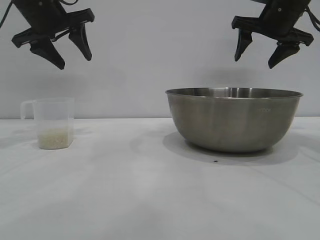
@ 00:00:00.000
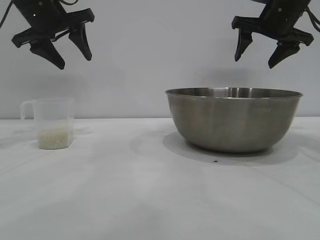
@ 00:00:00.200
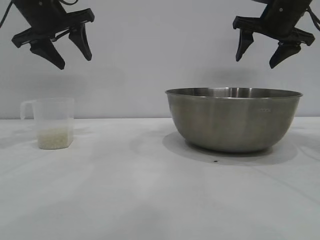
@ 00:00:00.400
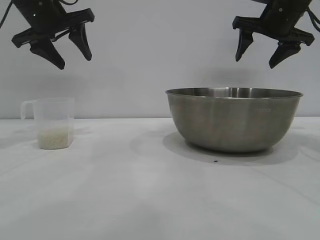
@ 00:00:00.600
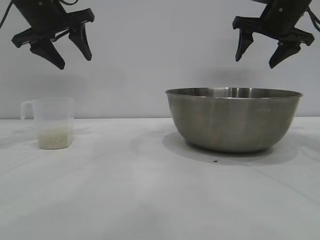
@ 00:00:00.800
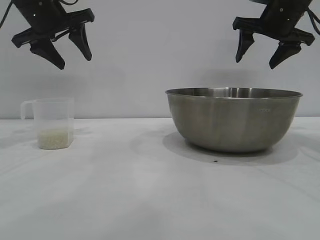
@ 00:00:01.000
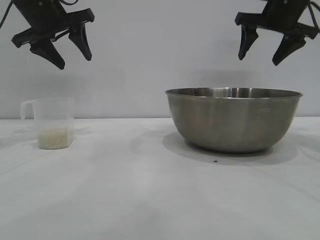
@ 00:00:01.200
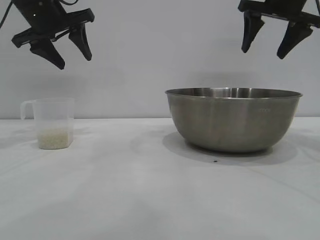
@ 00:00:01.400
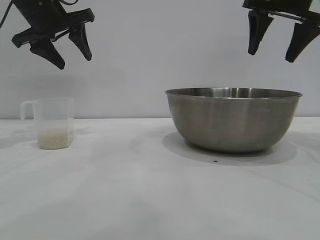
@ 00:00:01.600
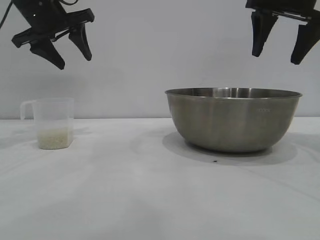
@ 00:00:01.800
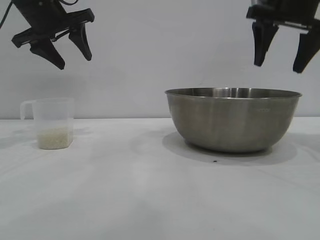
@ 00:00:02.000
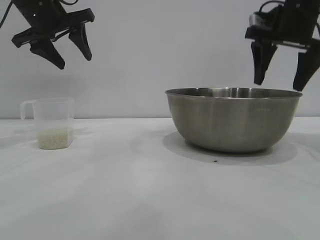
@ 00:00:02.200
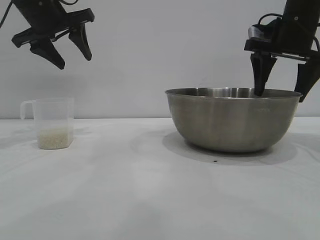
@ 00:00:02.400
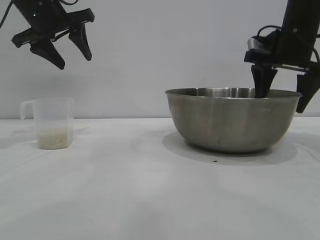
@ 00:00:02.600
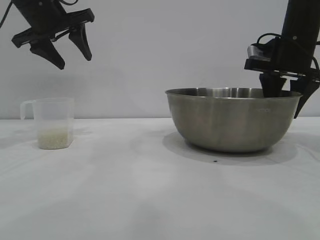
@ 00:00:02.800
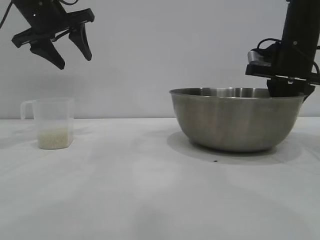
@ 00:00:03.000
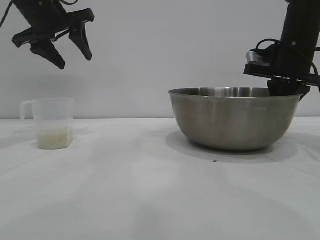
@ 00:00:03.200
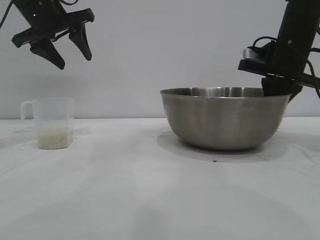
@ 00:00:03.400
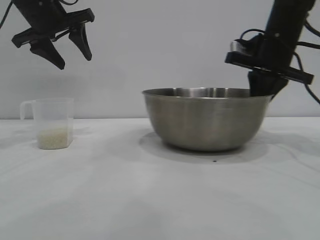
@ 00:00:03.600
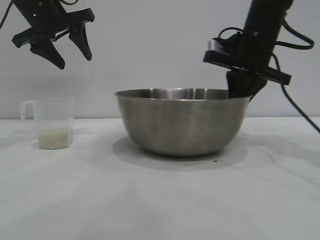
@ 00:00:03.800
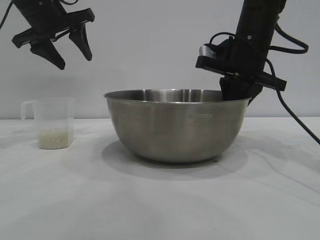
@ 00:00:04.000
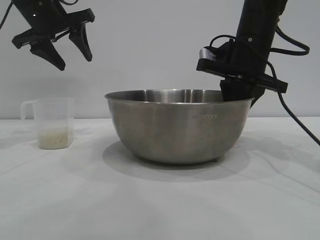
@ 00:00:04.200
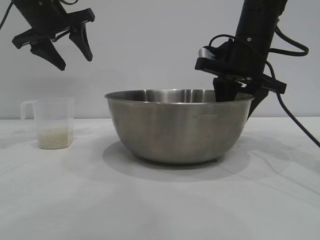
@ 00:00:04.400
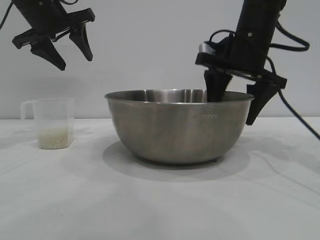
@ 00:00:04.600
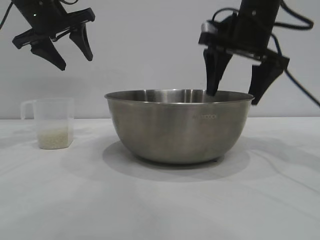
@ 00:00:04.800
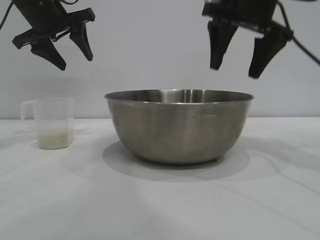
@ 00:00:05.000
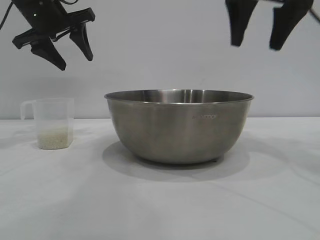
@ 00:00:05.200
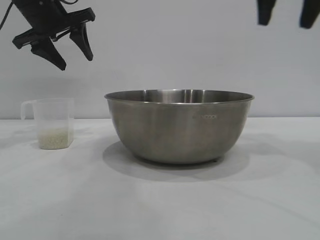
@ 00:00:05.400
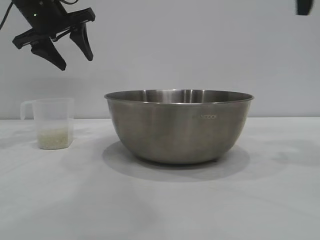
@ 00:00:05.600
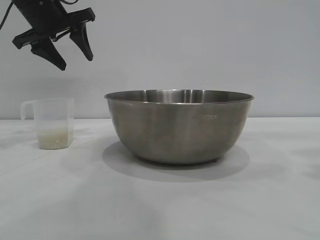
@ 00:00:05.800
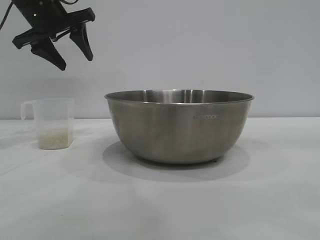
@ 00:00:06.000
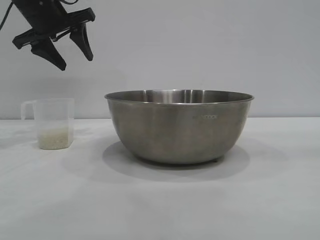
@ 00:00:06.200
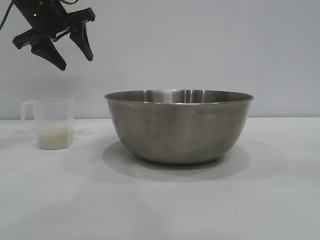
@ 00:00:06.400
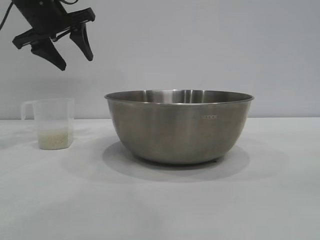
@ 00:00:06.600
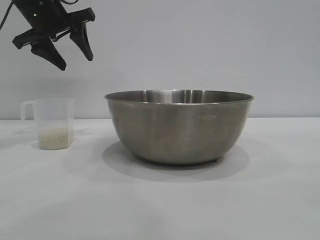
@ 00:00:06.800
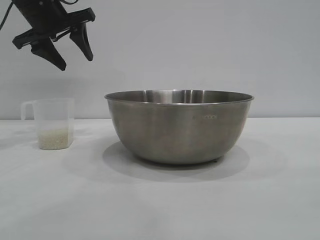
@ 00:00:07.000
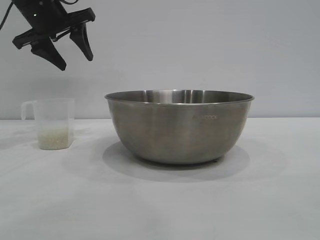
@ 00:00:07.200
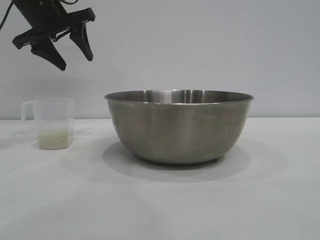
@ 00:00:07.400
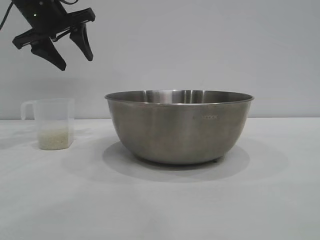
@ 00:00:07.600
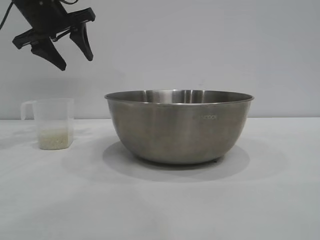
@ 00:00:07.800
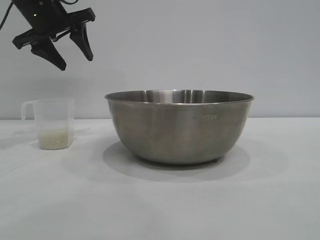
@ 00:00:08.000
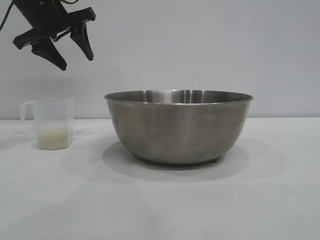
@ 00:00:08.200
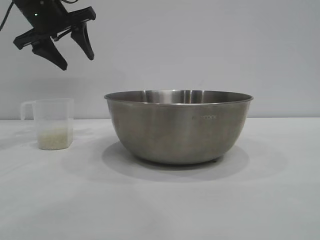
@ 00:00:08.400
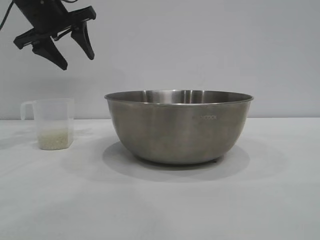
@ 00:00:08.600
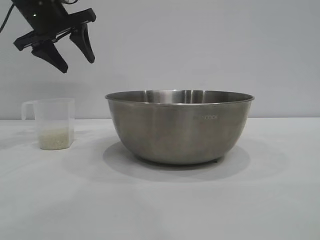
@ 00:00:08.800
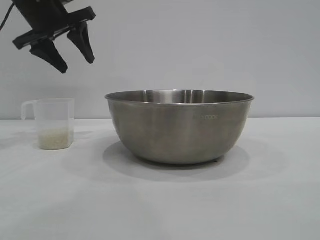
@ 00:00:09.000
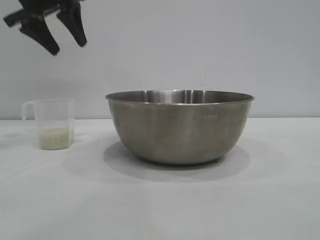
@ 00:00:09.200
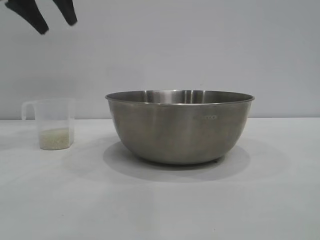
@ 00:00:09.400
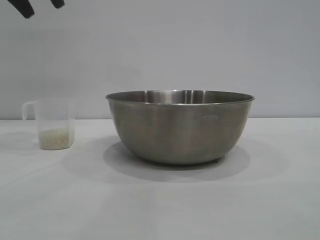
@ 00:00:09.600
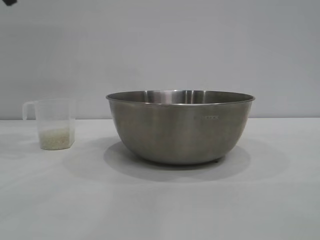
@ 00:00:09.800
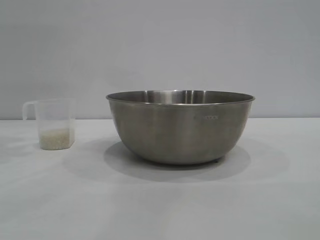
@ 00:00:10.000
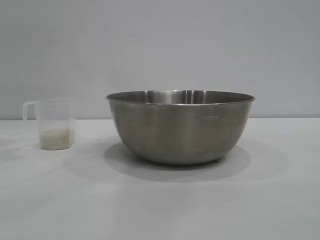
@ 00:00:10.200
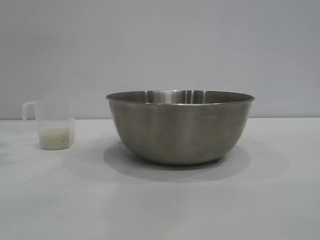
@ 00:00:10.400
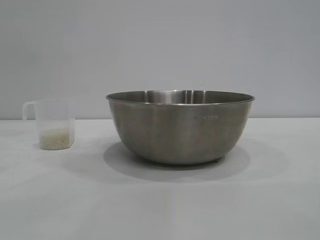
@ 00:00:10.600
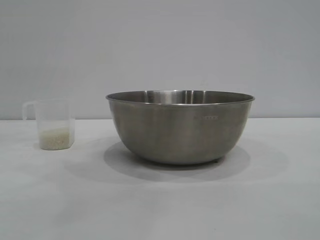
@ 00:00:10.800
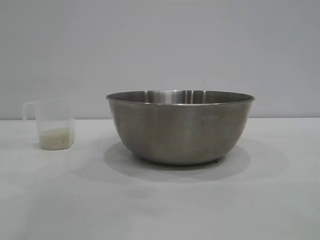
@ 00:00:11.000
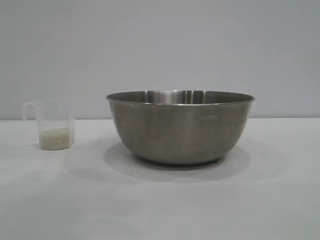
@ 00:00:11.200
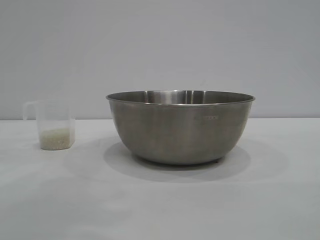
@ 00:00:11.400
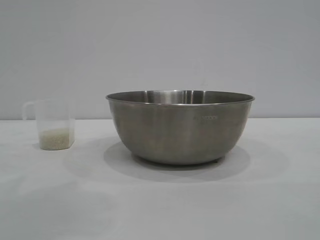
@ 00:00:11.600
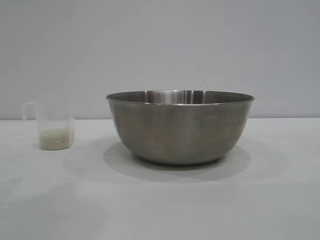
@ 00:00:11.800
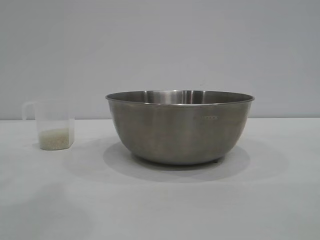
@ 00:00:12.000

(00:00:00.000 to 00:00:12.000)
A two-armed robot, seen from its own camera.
Task of the whole recording: the right gripper grasp the rice container and place it in the center of the table, the left gripper grasp the rice scoop and pour the rice into the rice container.
Step, 00:00:00.000 - 00:00:04.800: Move the bowl to the center of view with the right gripper.

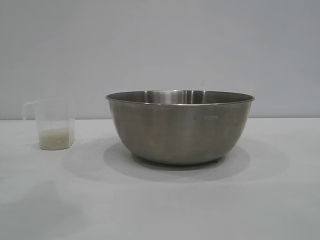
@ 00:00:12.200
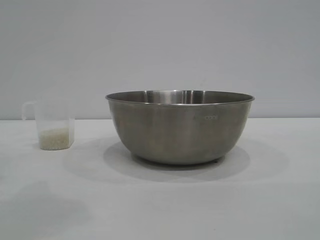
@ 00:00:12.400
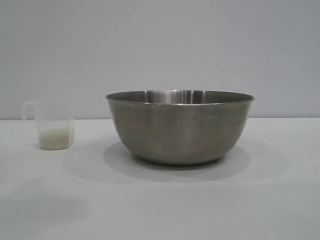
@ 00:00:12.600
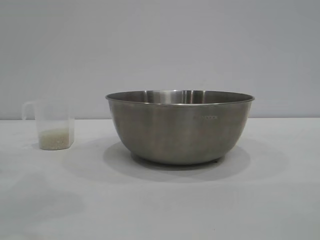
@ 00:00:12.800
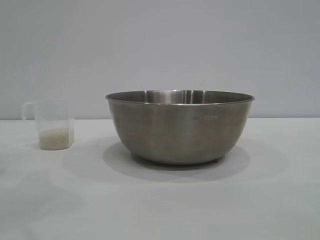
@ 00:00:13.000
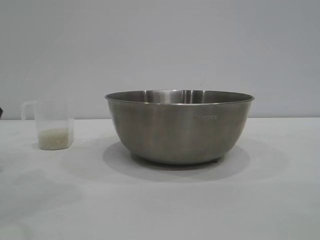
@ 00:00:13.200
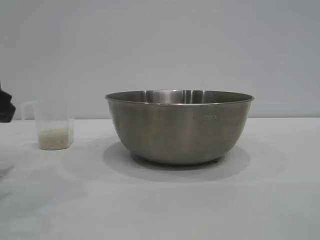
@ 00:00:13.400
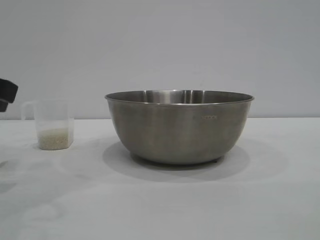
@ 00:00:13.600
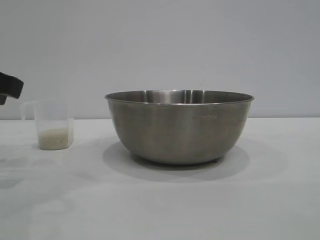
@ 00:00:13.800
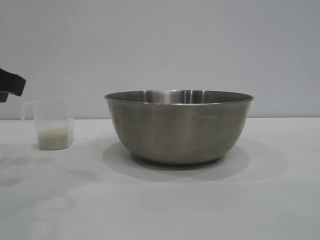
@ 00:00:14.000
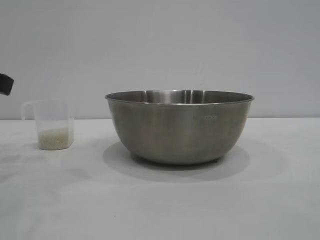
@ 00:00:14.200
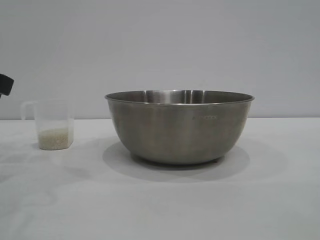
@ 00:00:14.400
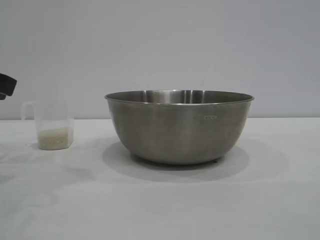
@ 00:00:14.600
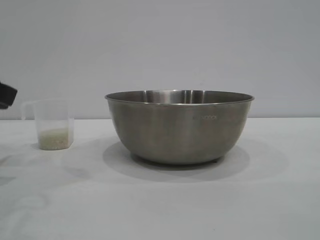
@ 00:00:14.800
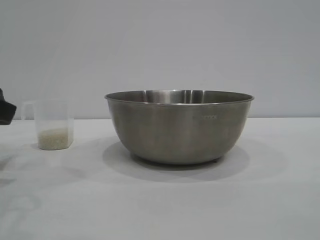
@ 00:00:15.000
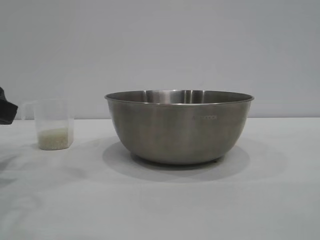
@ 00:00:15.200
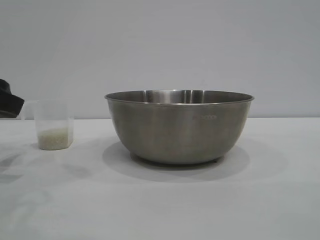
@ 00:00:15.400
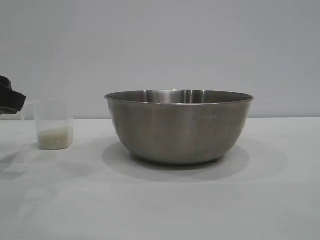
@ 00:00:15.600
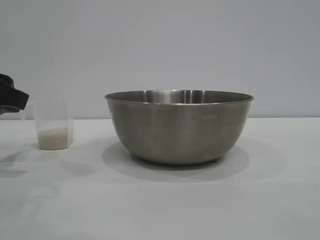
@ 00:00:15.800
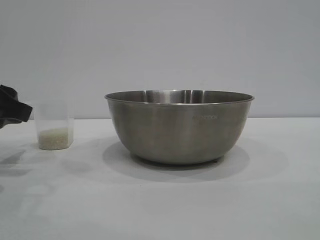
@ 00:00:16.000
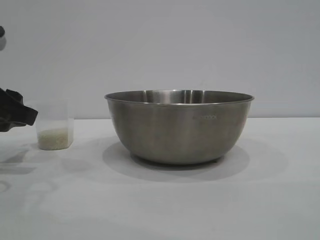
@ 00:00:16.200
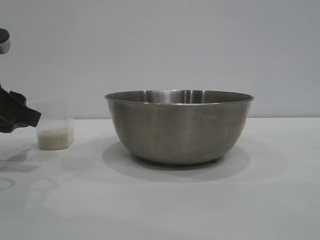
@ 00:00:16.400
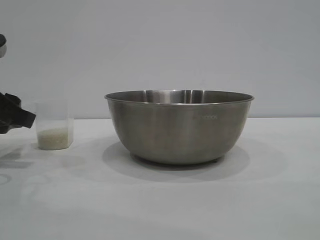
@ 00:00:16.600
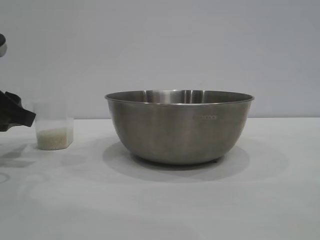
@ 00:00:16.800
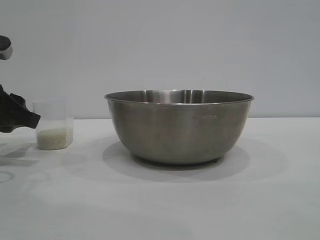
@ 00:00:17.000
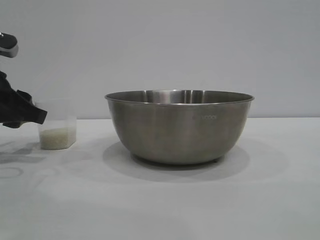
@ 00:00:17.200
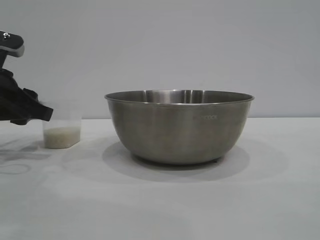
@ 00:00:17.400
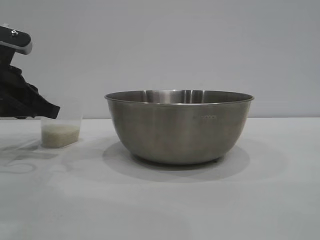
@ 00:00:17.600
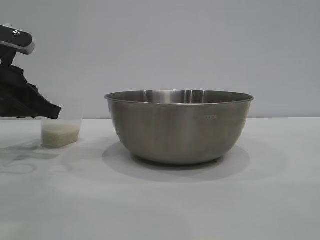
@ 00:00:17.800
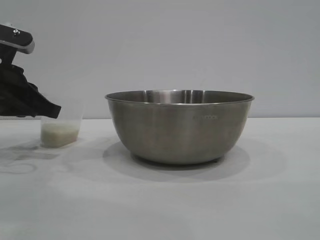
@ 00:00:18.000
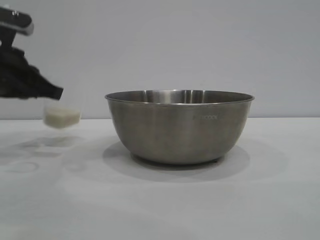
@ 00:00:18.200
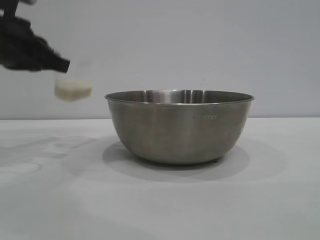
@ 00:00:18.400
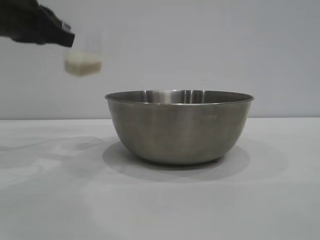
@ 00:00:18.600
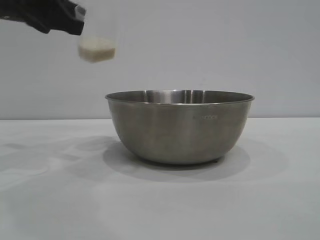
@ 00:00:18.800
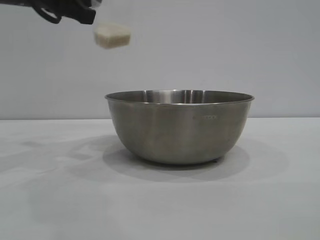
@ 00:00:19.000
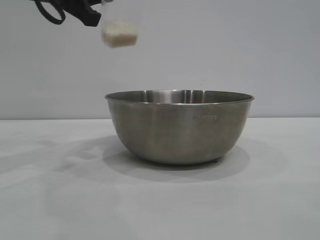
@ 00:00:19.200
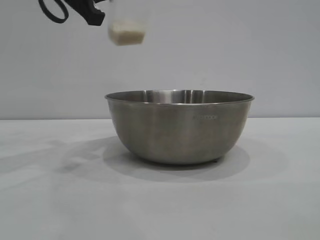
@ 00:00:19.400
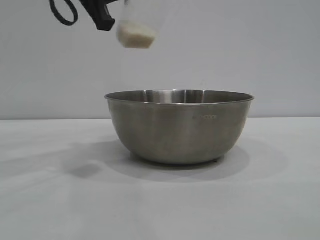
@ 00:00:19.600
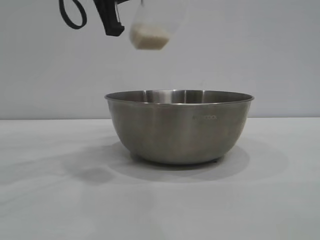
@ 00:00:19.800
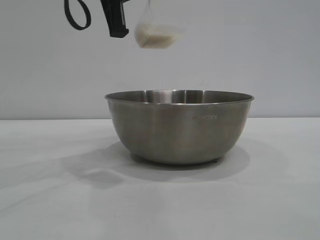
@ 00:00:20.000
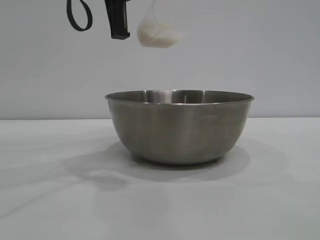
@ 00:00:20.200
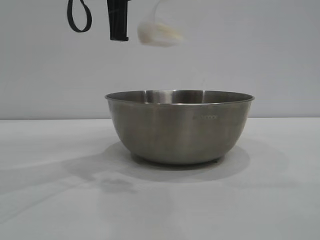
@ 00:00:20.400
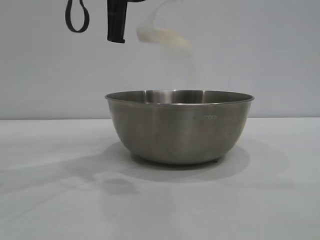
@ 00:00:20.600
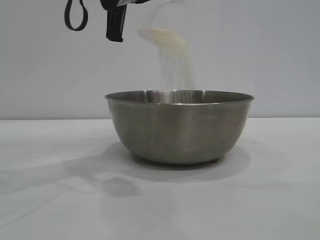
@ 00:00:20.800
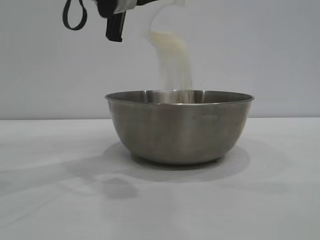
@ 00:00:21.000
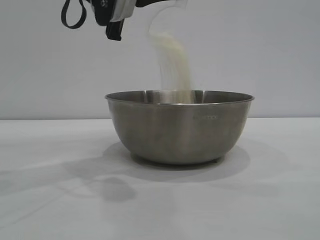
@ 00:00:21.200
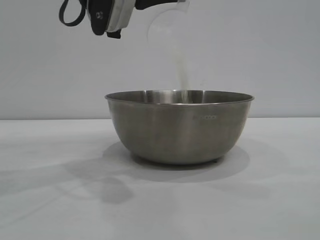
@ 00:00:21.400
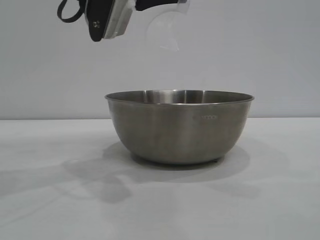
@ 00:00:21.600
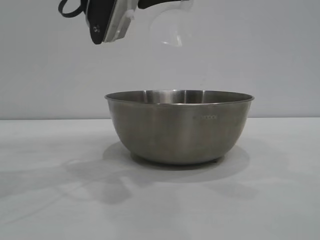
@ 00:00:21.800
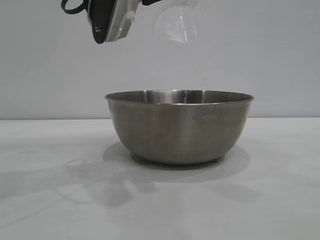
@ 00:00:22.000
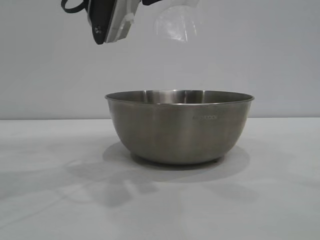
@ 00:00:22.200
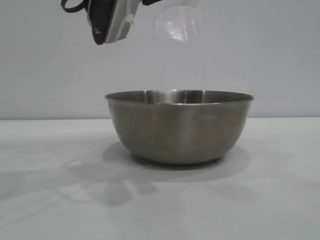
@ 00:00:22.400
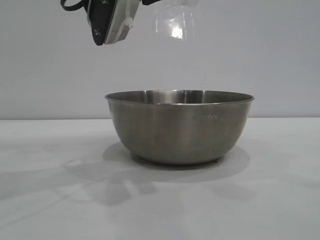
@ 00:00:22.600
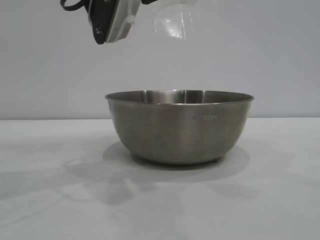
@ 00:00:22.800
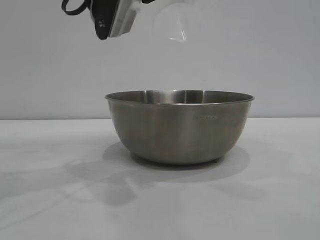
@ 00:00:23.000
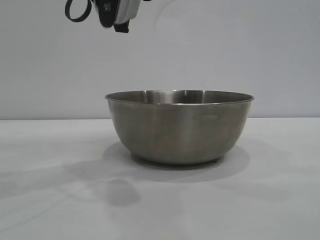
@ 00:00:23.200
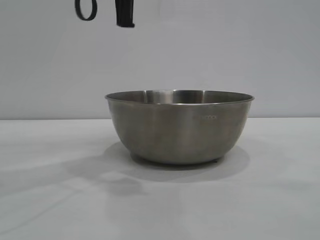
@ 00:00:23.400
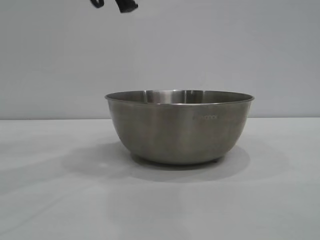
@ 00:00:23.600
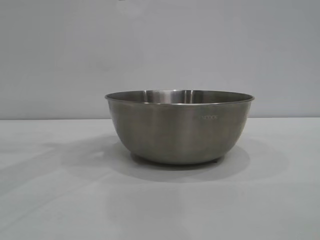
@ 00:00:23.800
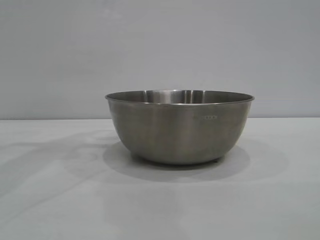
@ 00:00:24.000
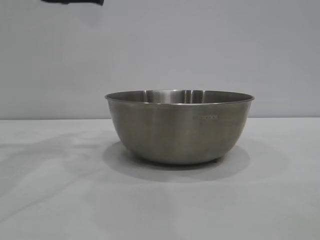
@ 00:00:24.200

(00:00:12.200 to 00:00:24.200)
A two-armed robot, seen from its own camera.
Task of the whole recording: the right gripper grasp the rice container and place it in the center of the table, the left gripper grasp the rice scoop and pour the rice into the rice container.
Step, 00:00:12.200 - 00:00:18.000: Pick up the cup with rice in it with the left gripper.
Step, 00:00:18.400 - 00:00:23.200: Pour the rice from the cup into the bowl with the left gripper.
